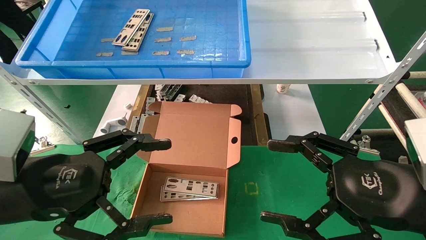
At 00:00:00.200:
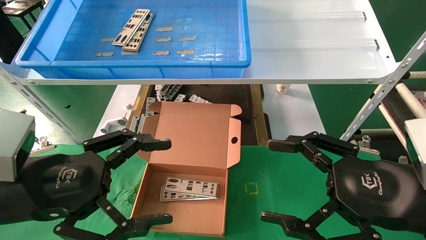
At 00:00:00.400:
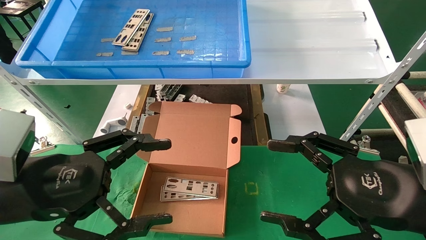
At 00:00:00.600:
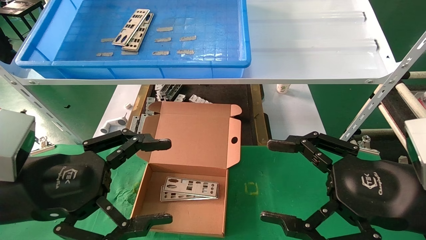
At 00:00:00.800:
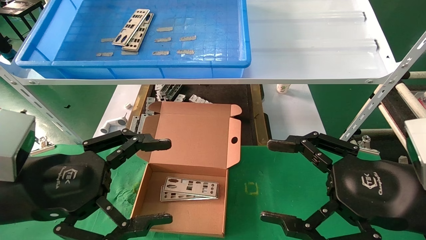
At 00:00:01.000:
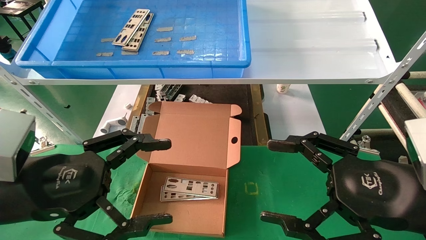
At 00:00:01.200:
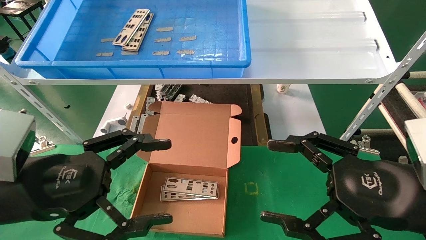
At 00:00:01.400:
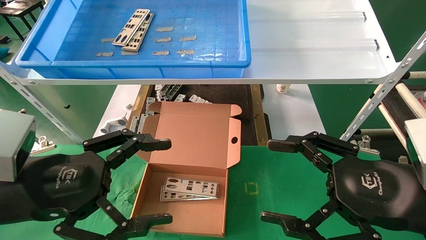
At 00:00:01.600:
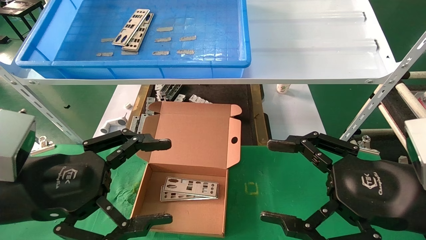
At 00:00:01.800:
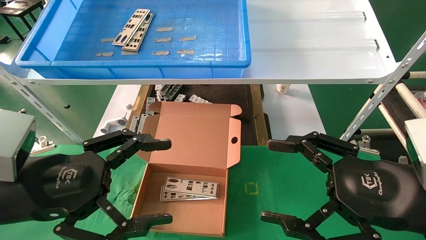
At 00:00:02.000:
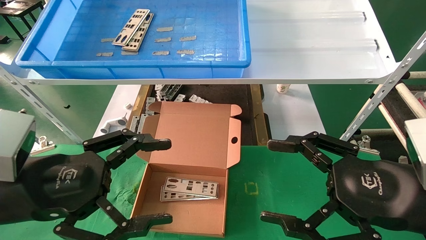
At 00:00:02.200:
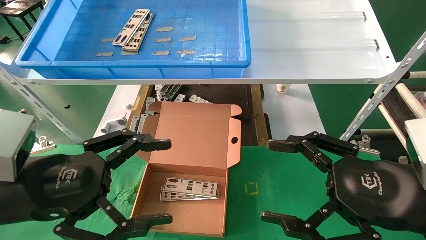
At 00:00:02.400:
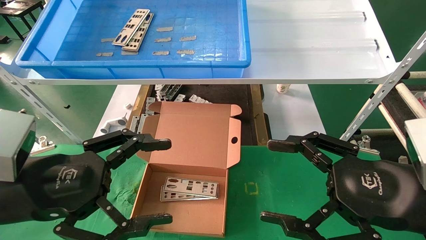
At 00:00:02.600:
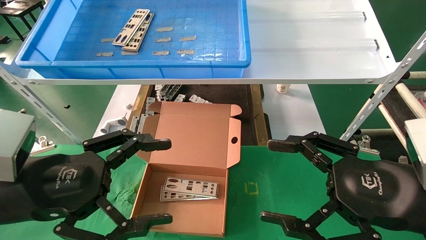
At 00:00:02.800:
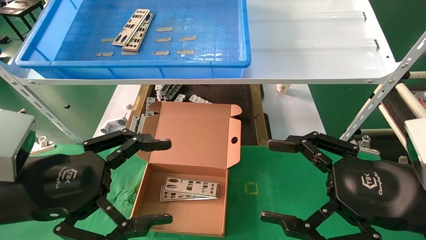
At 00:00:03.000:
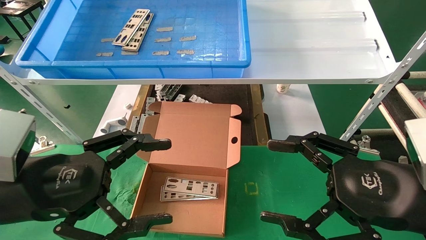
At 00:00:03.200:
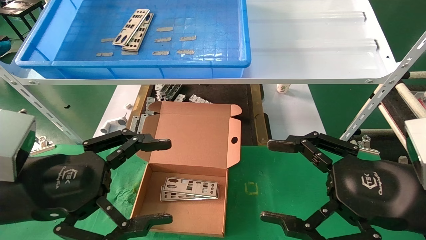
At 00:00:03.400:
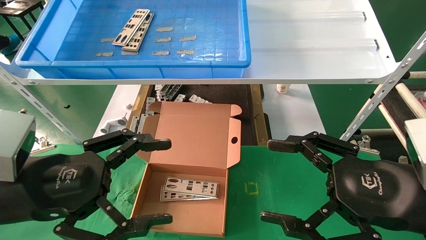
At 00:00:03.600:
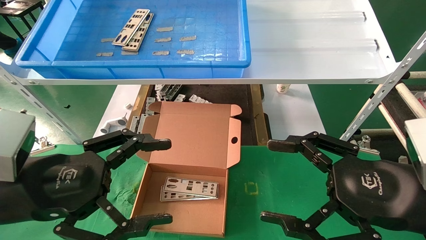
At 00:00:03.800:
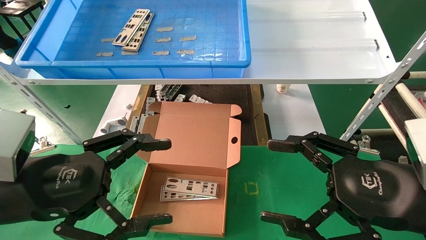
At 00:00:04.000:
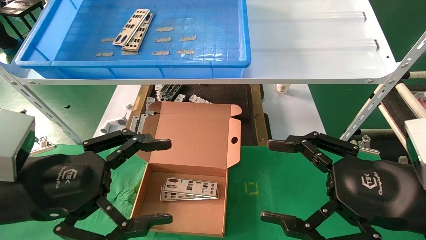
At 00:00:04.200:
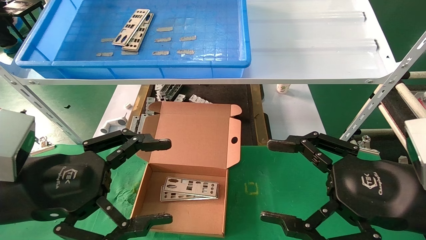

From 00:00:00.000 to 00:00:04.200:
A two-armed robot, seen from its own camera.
Task of the whole recording: pick up the parts on the tray and put them in the cardboard box.
From 00:00:00.000 to 00:00:04.200: The two grippers keep their place.

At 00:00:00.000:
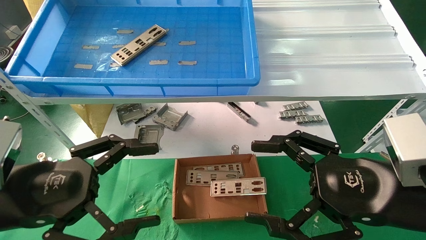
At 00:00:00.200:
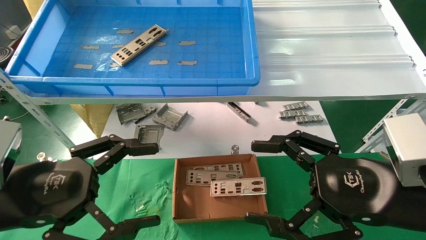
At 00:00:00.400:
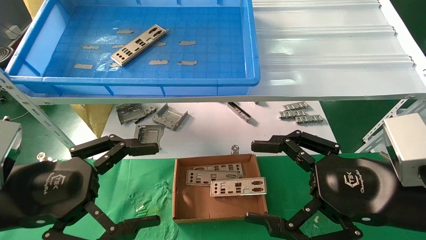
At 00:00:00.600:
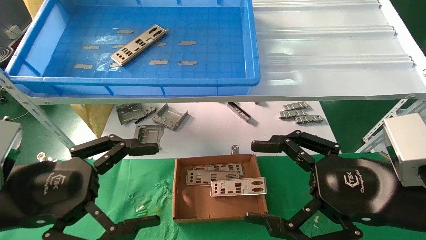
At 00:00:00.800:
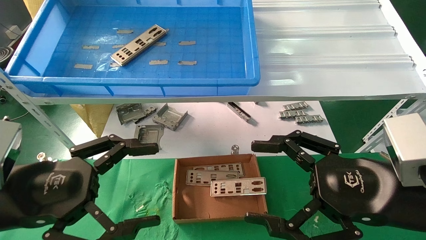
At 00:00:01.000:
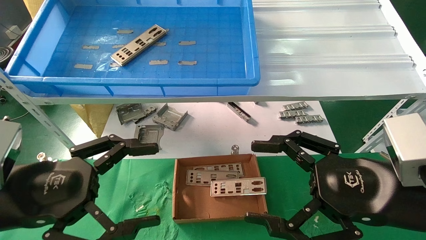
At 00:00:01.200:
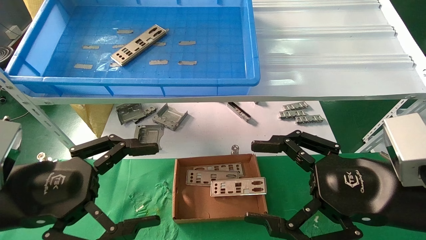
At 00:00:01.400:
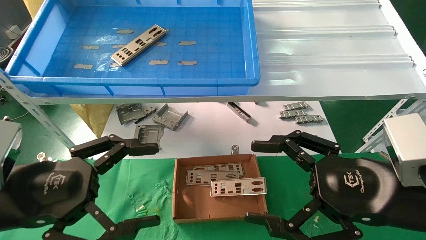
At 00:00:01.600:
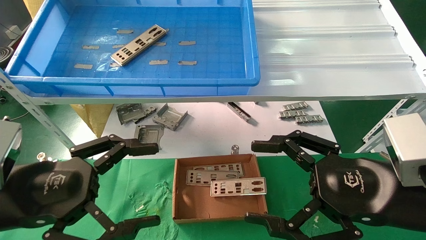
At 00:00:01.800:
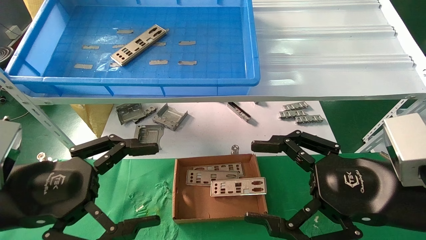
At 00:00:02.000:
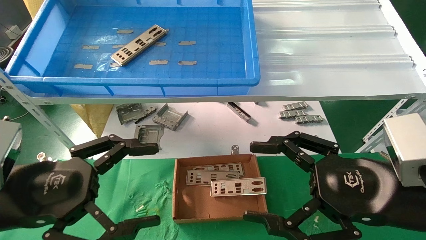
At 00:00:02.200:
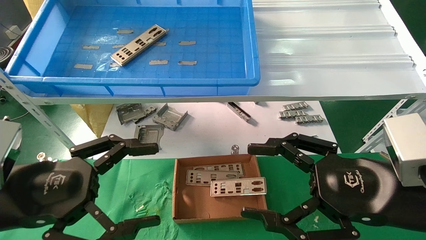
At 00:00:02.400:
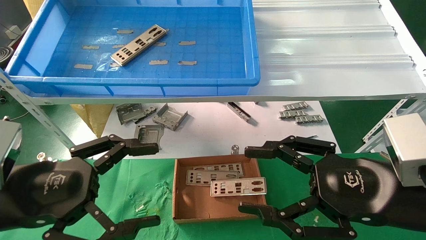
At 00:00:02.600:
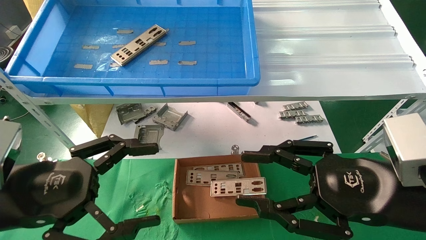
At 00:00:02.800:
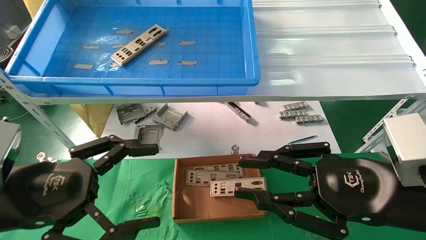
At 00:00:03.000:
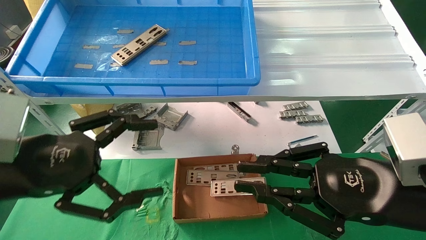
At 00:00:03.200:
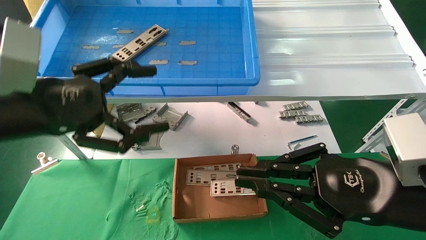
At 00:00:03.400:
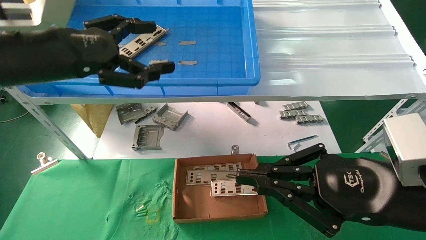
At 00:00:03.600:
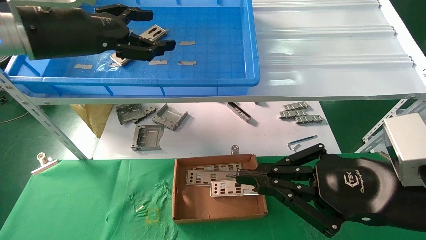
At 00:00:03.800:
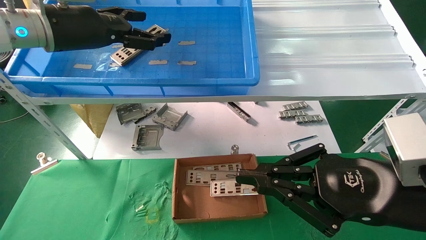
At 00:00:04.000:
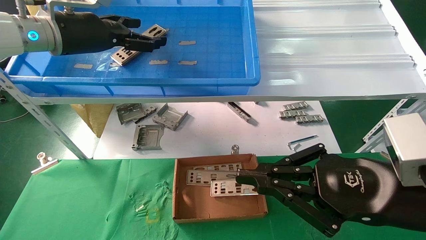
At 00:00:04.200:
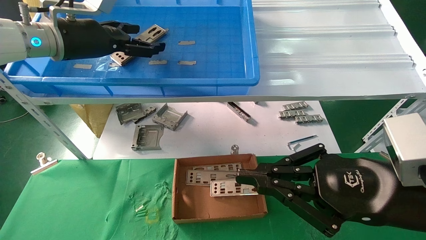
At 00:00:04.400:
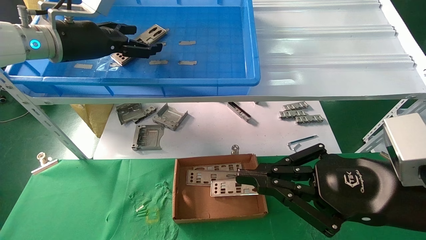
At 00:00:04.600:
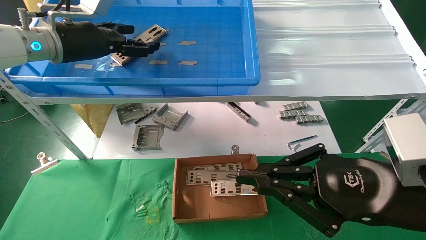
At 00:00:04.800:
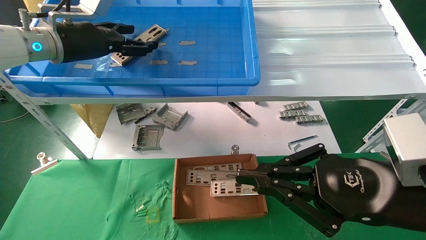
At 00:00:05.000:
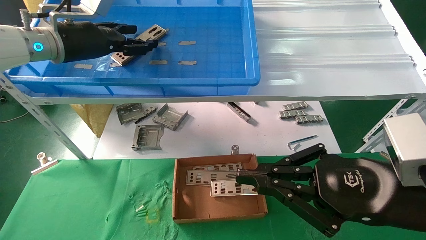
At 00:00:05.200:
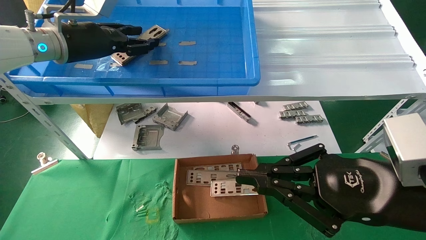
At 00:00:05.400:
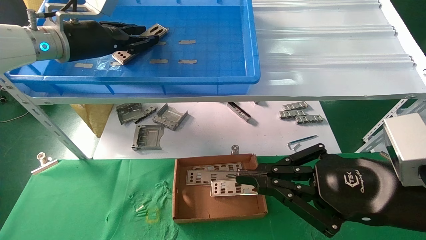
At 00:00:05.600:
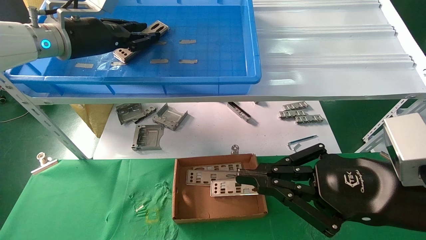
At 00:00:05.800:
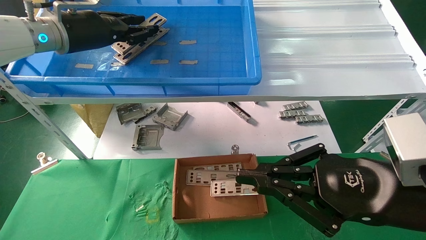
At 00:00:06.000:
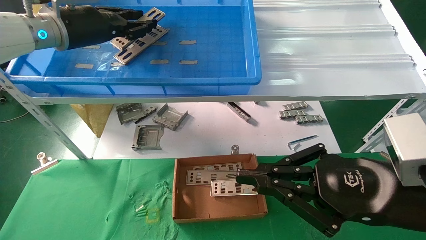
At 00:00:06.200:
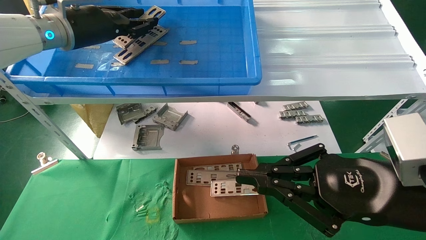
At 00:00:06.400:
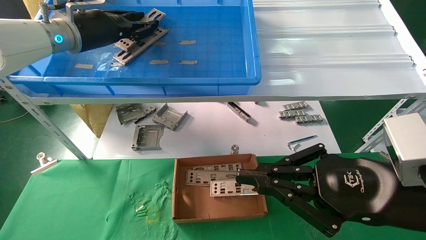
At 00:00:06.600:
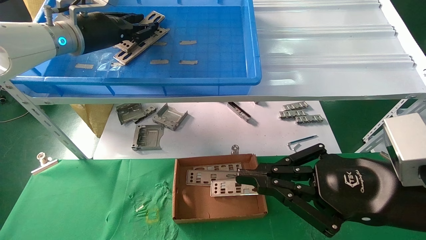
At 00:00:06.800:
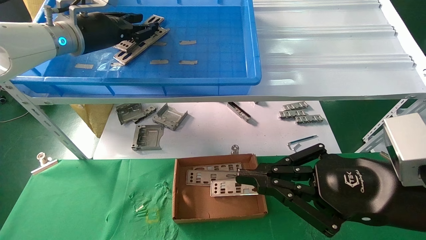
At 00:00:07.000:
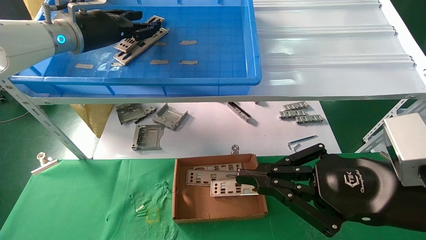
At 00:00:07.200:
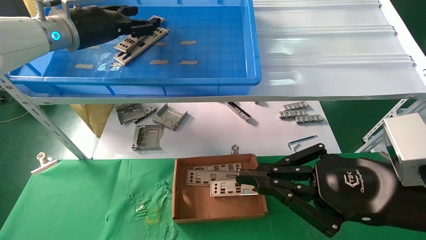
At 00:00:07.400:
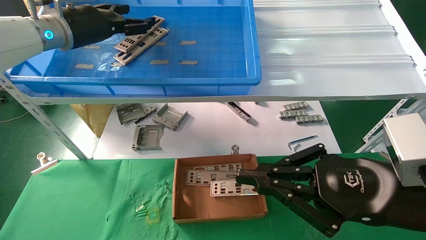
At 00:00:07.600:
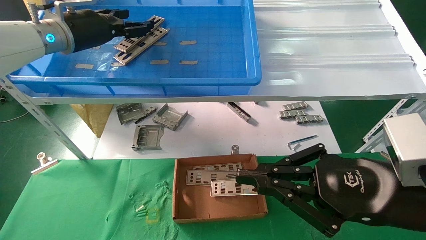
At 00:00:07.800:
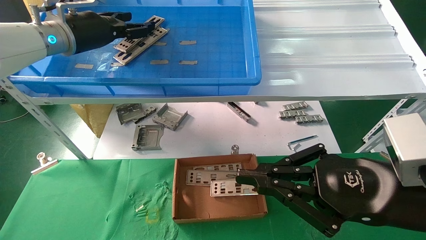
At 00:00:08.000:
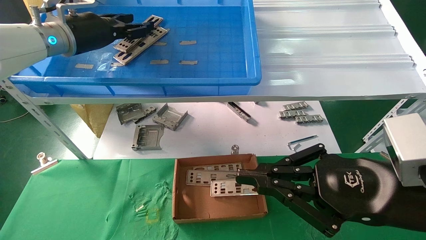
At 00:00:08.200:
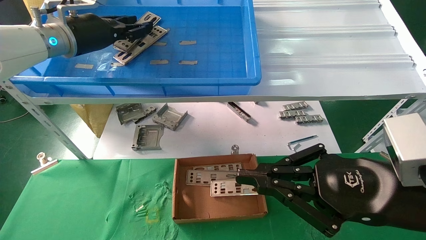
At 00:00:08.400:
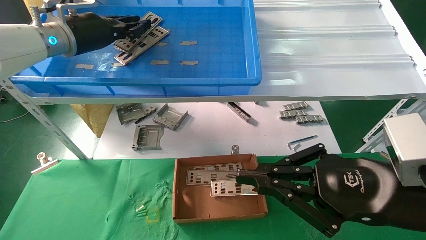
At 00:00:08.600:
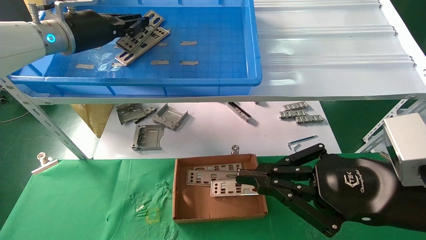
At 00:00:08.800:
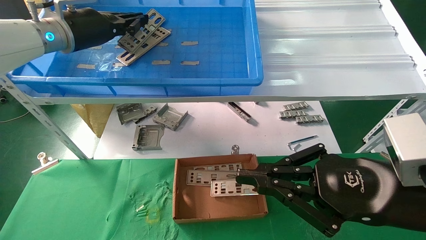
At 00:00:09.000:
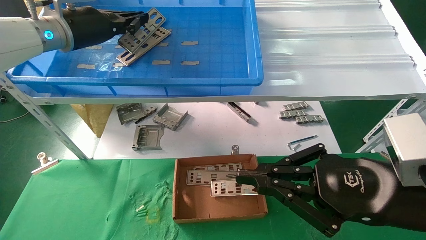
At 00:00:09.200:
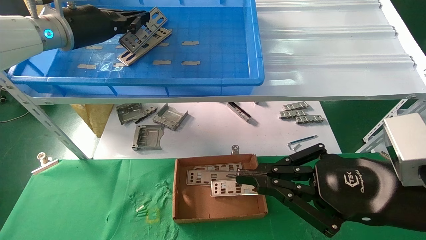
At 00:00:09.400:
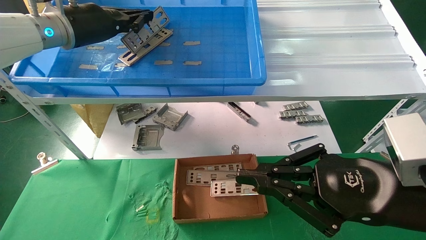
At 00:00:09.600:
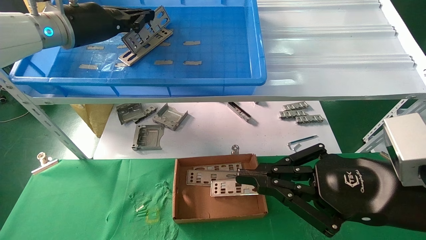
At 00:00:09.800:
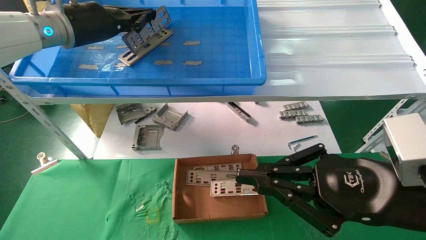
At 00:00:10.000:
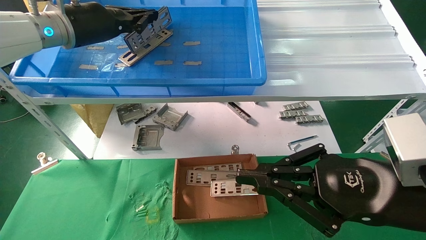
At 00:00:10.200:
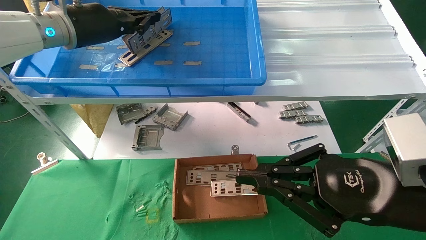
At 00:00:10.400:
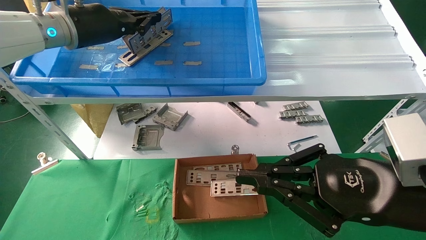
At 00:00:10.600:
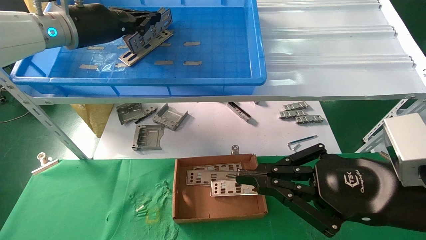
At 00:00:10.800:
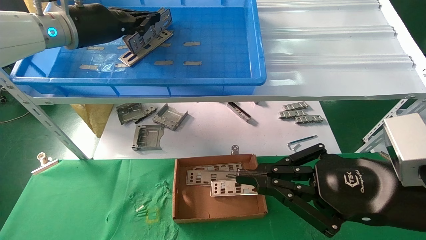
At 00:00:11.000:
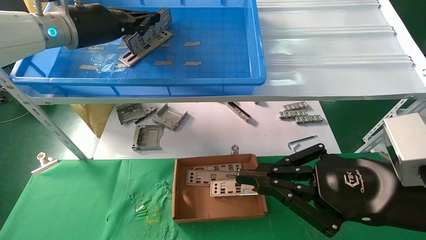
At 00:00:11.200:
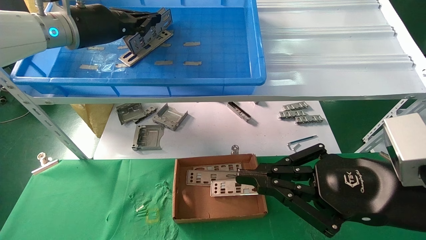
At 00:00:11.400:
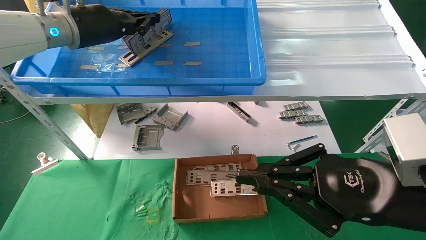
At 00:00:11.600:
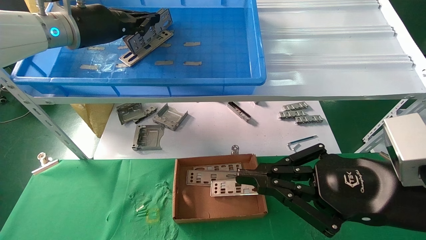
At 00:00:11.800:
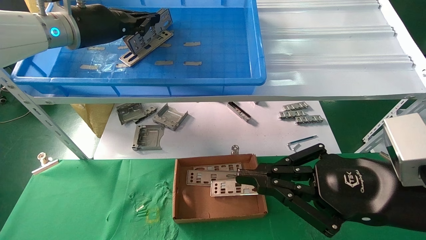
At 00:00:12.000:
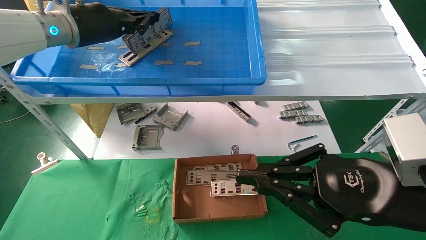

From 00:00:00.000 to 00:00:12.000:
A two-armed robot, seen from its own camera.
Task of the whole recording: pick up the parts on the tray and put them in the cardboard box.
Step, from 00:00:03.200 to 00:00:10.400: Pick up the IO bracket from the container box.
From 00:00:00.000 to 00:00:01.600: The two grippers keep their place.
From 00:00:01.600 to 00:00:03.000: The right gripper closes up, while the left gripper ends up about 5 cm from where it was.
From 00:00:03.000 to 00:00:04.400: The left gripper travels forward and upward by some 25 cm.
From 00:00:04.400 to 00:00:06.000: The left gripper closes up.
From 00:00:06.000 to 00:00:07.600: The left gripper opens up.
From 00:00:07.600 to 00:00:09.000: The left gripper closes its fingers.
From 00:00:09.000 to 00:00:10.400: The grippers move only a little.
From 00:00:10.400 to 00:00:12.000: Neither gripper changes place.
